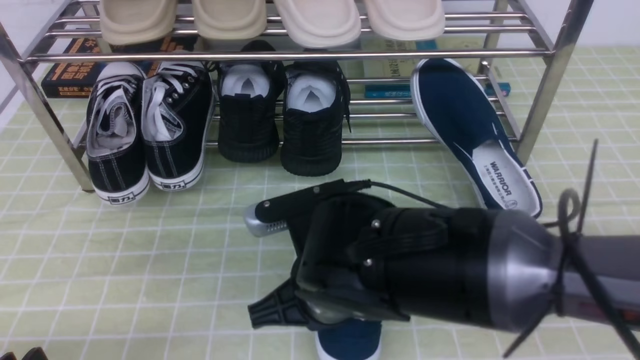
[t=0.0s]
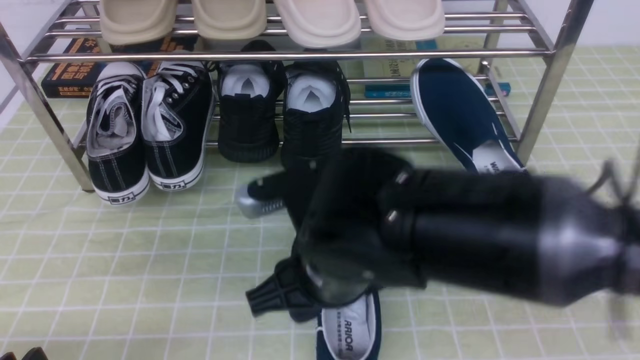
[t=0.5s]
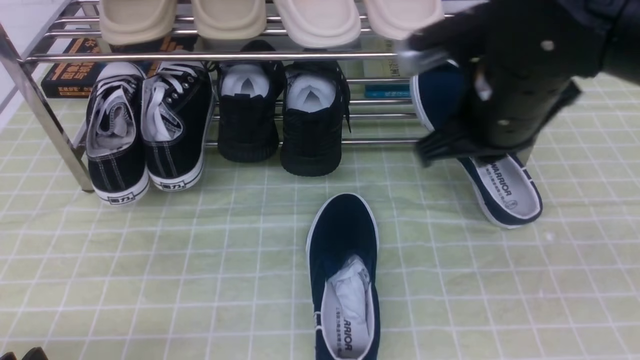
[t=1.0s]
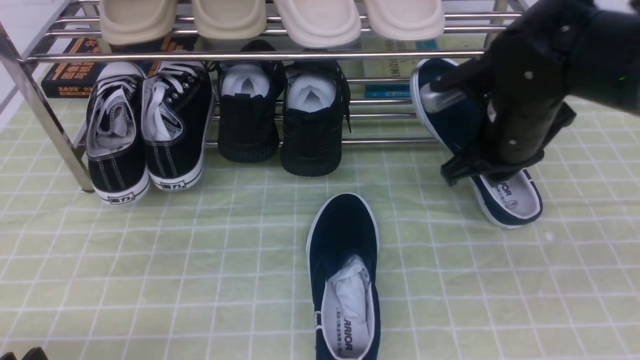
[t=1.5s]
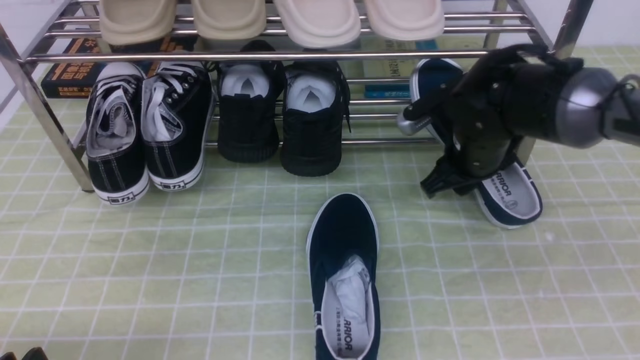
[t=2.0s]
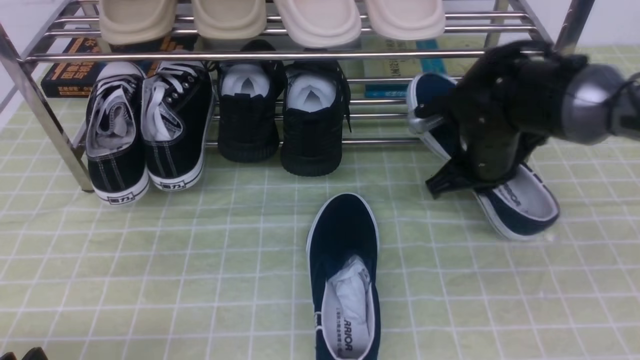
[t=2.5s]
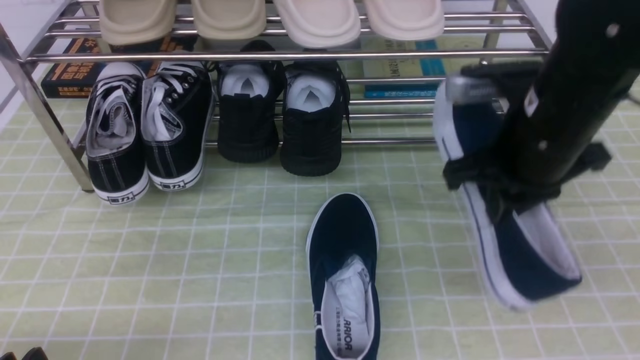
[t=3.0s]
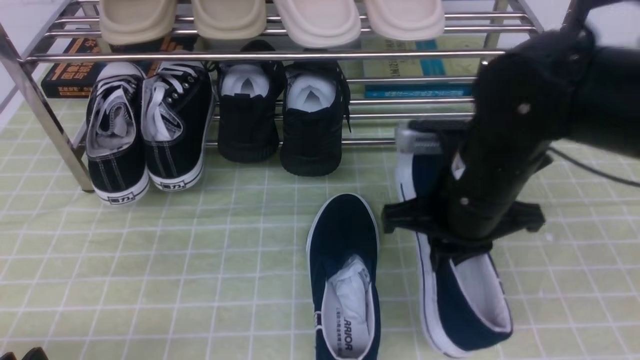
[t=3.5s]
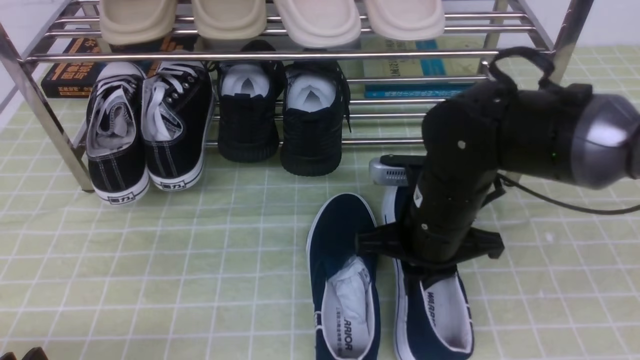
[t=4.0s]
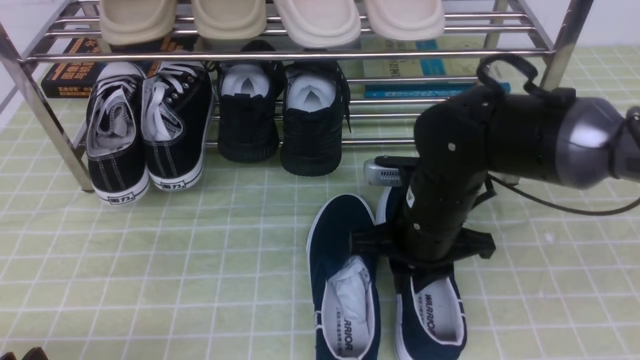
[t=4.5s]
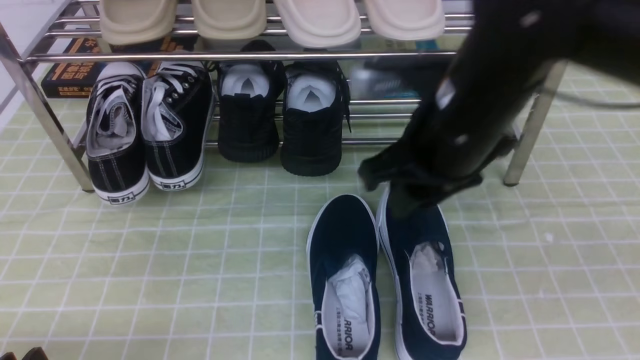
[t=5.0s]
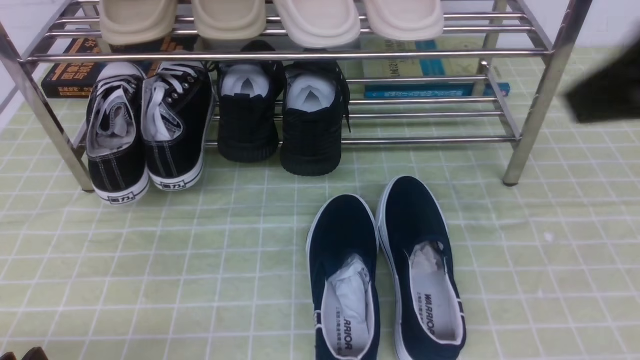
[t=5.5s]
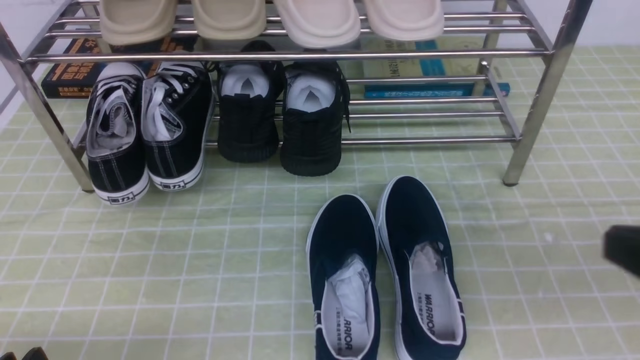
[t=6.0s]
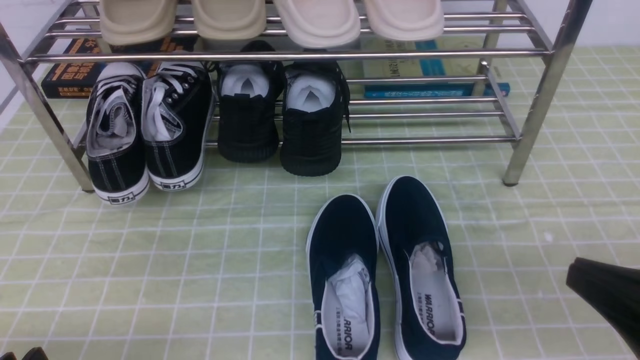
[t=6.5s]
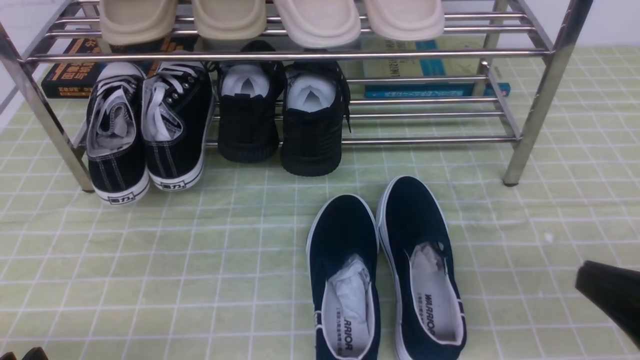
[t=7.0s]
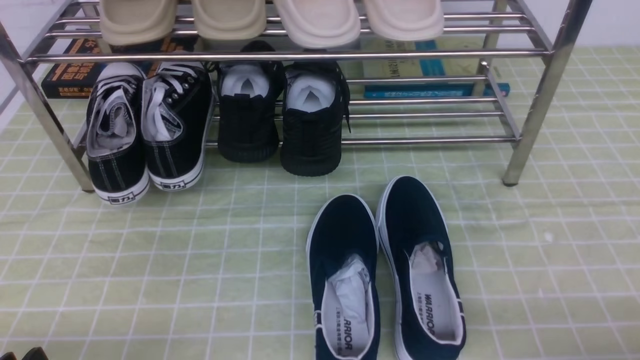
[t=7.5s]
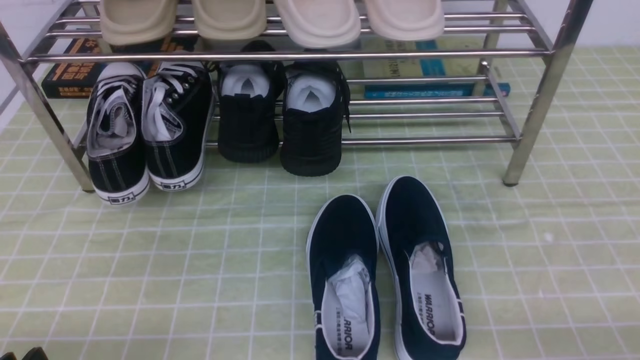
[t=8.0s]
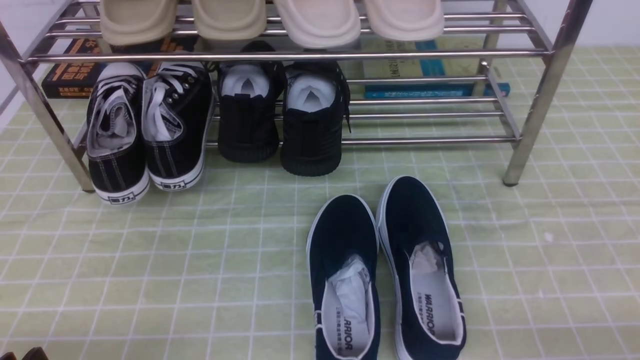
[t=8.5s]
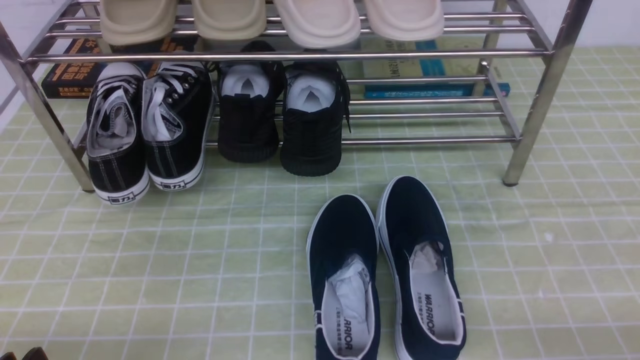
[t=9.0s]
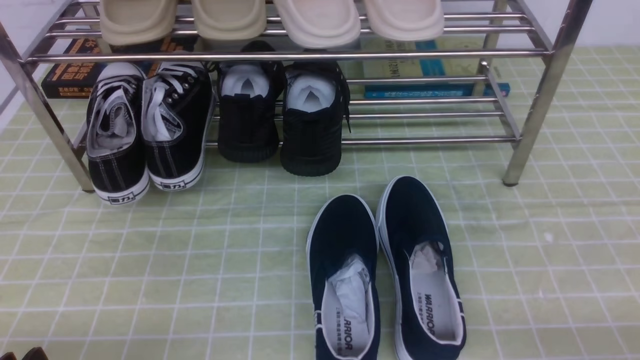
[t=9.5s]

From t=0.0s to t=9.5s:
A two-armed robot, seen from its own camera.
Step, from t=1.0s to t=2.0s: use the right arm to clamp a shoe on the right side of the shoe rack.
Step, from t=2.5s to t=4.5s: use the right arm to take out the clamped shoe from the shoe rack and put it down.
From t=0.0s to t=2.0s: The right gripper travels forward and to the right by roughly 25 cm, and opens its fingers.
From t=2.0s to t=4.0s: The right gripper moves backward and to the left, roughly 10 cm, and closes up.
From t=4.0s to t=5.5s: The right gripper is displaced upward, backward and to the right by roughly 30 cm, and opens and closes again.
From t=5.5s to t=7.5s: The right gripper shifts some 30 cm downward and to the right.
